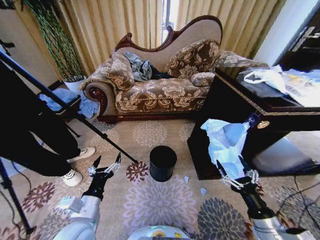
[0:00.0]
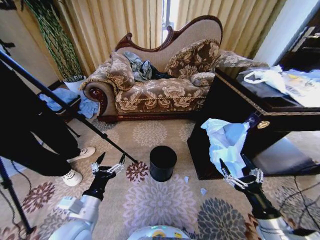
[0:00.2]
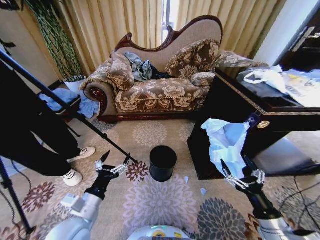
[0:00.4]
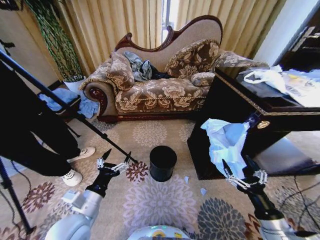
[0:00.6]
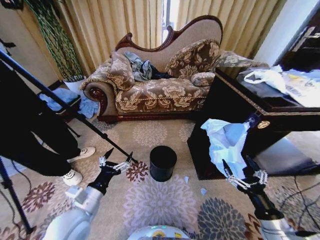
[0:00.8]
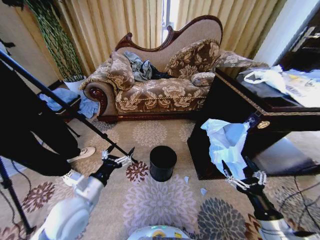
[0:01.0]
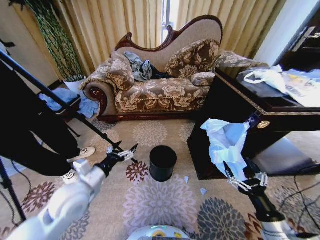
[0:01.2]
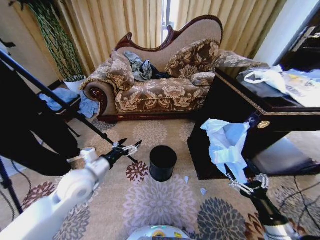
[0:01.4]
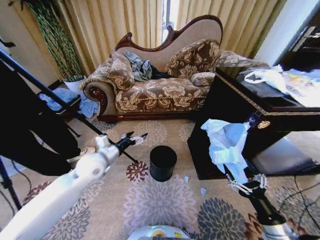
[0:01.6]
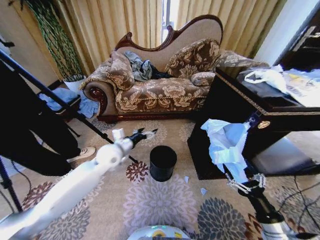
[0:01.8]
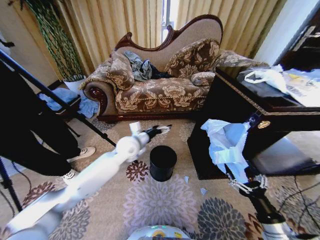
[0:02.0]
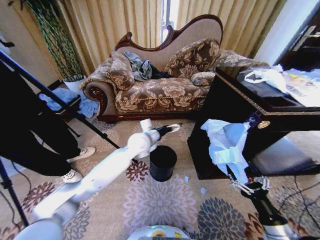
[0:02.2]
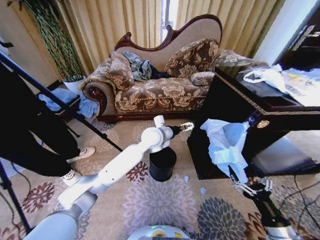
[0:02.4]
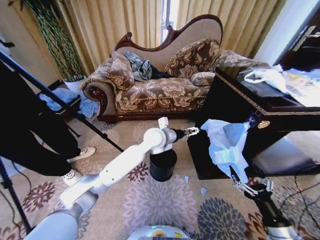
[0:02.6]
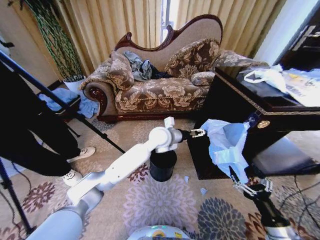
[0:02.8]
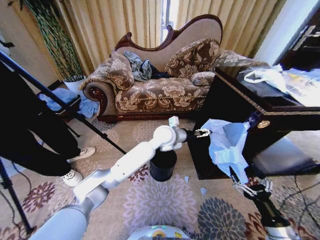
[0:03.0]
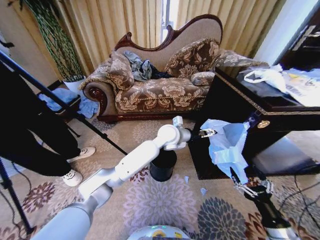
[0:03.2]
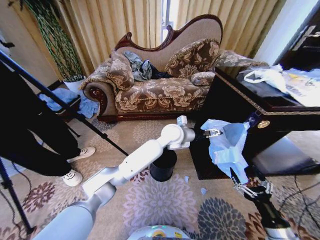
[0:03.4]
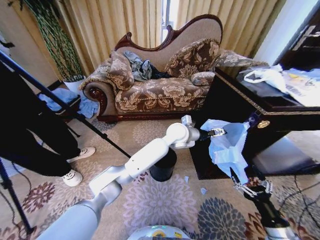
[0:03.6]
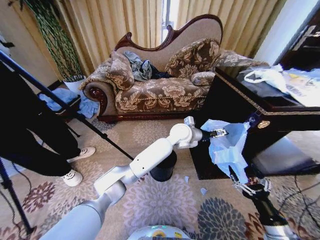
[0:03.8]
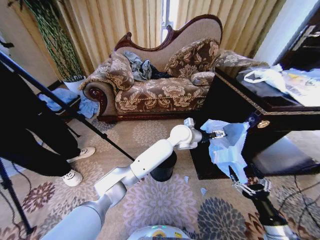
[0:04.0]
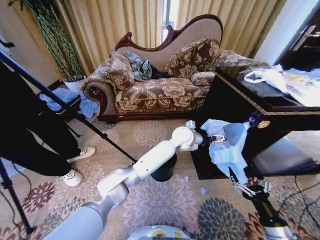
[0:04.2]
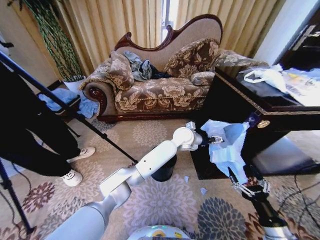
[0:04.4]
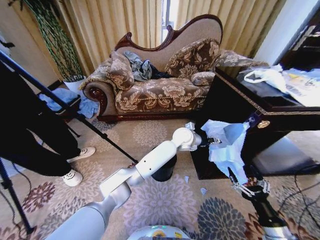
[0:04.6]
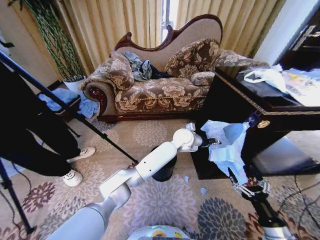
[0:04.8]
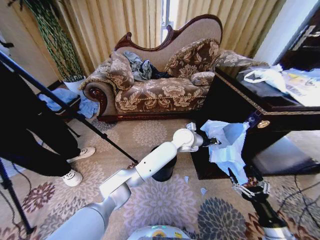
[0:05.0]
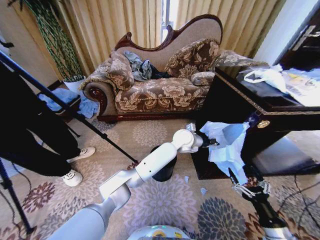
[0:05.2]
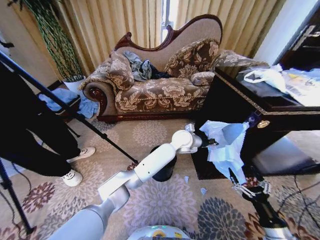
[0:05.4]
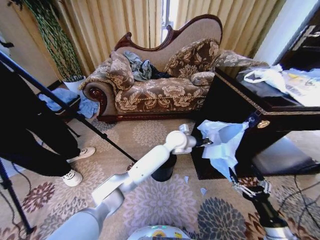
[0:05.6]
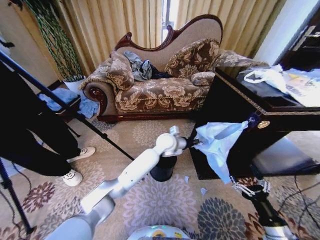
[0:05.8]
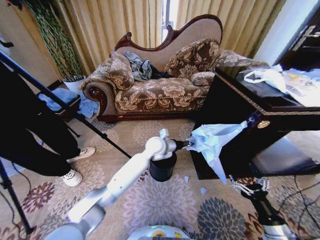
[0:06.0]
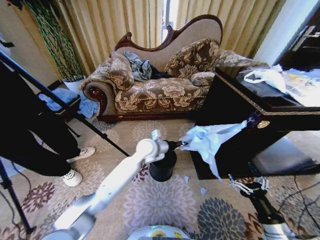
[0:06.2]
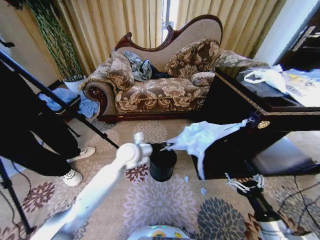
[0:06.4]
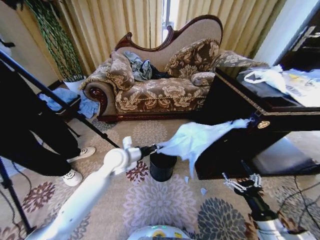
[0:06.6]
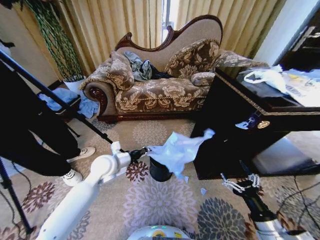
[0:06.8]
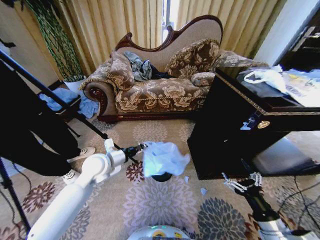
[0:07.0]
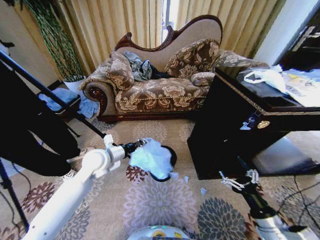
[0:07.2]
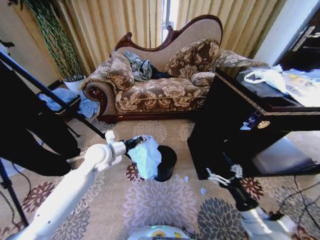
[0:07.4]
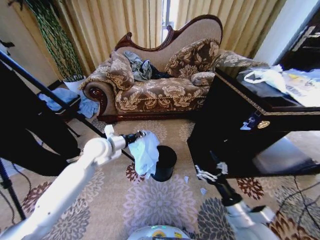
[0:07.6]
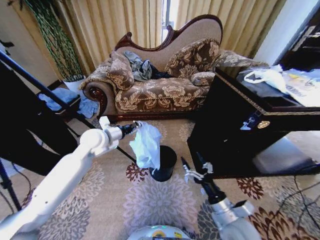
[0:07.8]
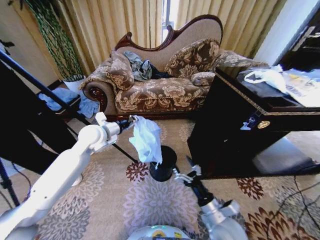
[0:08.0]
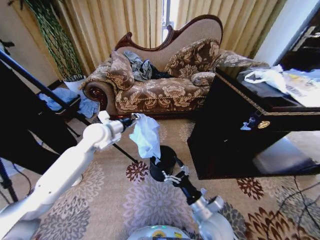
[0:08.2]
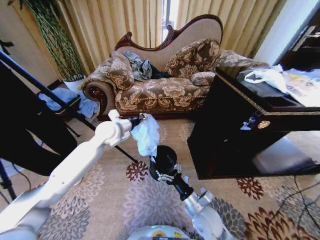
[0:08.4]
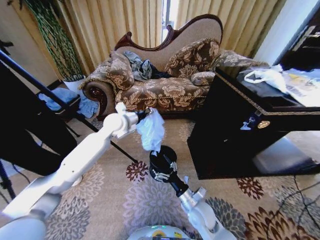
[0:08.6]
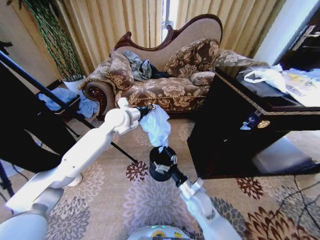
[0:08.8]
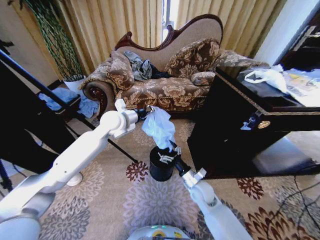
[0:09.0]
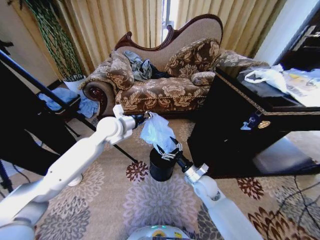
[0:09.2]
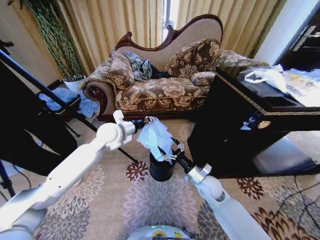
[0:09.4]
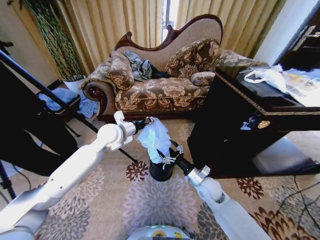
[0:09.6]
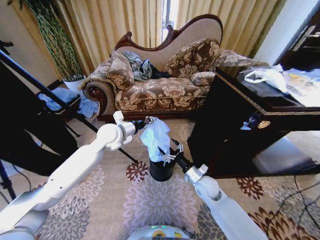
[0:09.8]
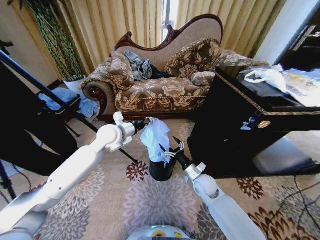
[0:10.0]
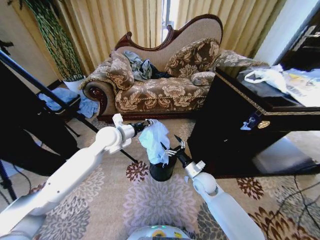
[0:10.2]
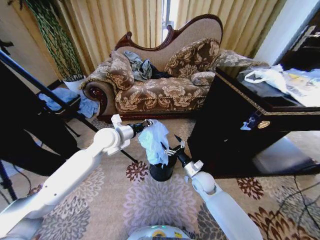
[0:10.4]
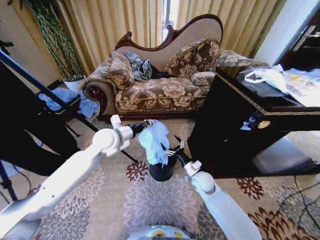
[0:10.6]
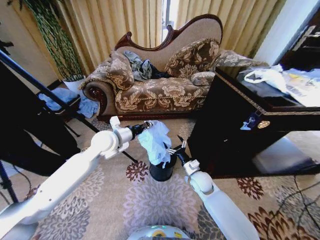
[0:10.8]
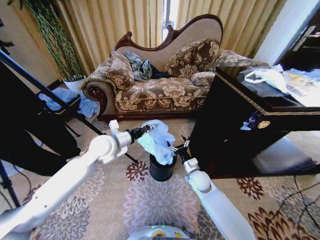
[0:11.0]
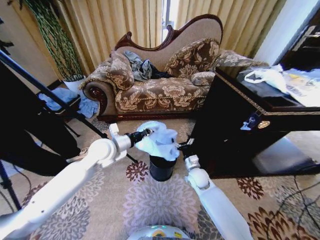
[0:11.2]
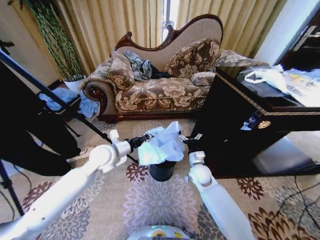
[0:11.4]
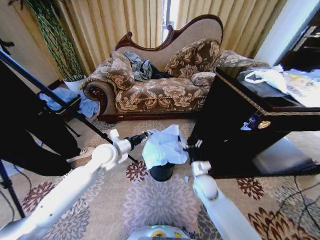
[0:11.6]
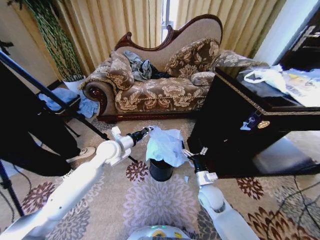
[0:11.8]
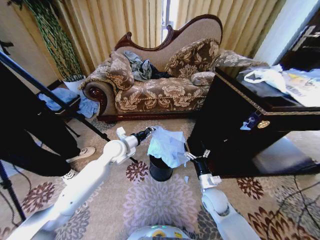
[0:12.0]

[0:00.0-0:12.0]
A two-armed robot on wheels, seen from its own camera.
Task of the whole recording: Place a garbage bag over the trash bin.
0:01.6 to 0:03.0: The left gripper heads to the right and forward, covering approximately 30 cm.
0:03.0 to 0:04.4: The left gripper goes about 10 cm to the right.
0:04.4 to 0:06.0: The left gripper is displaced to the left by about 15 cm, and closes.
0:06.0 to 0:07.6: The right gripper moves to the left and forward, approximately 10 cm; the left gripper moves to the left, approximately 20 cm.
0:07.6 to 0:09.0: The left gripper heads upward, forward and to the right, covering roughly 10 cm. The right gripper moves forward, to the left and downward, roughly 20 cm.
0:09.0 to 0:10.4: The left gripper changes place by about 5 cm.
0:10.4 to 0:12.0: The left gripper goes approximately 5 cm downward. The right gripper shifts about 5 cm backward.

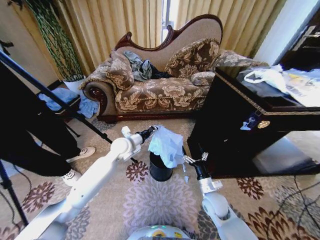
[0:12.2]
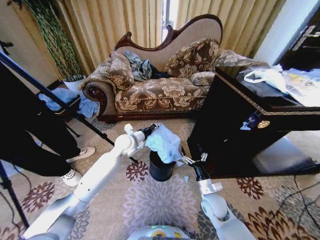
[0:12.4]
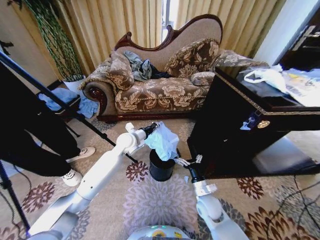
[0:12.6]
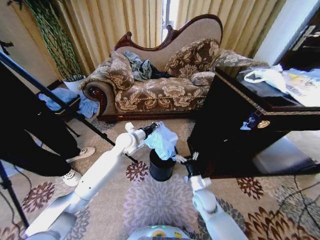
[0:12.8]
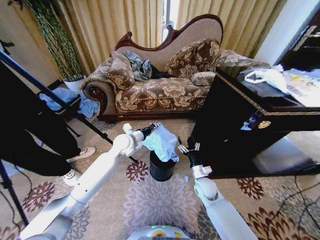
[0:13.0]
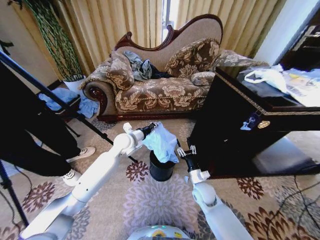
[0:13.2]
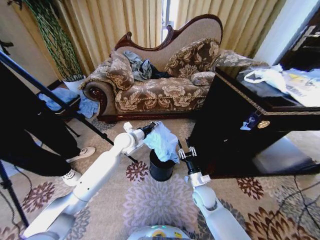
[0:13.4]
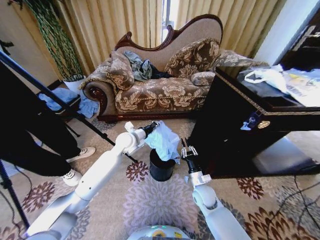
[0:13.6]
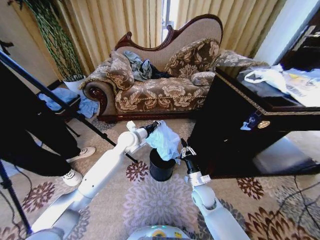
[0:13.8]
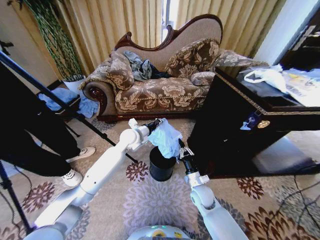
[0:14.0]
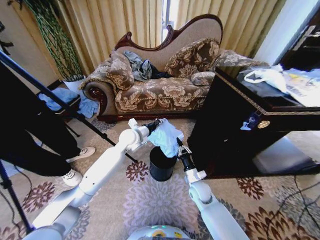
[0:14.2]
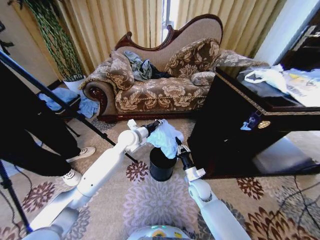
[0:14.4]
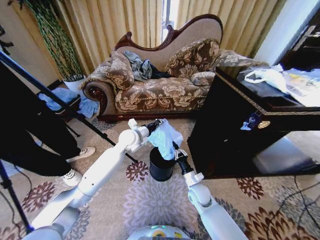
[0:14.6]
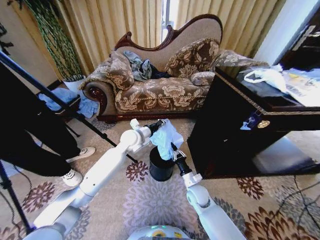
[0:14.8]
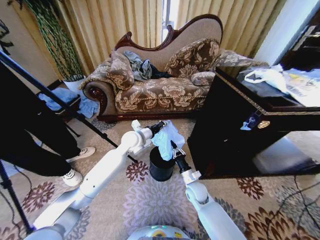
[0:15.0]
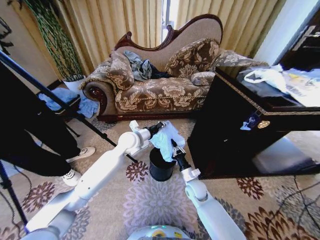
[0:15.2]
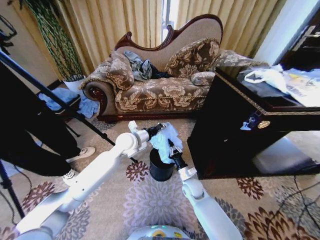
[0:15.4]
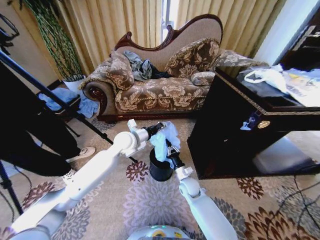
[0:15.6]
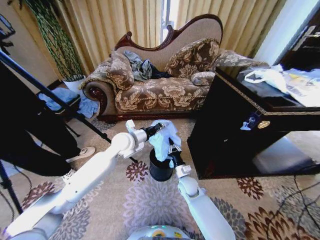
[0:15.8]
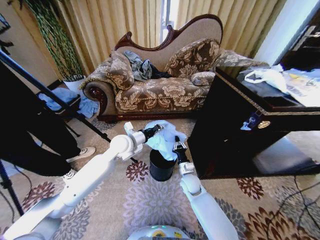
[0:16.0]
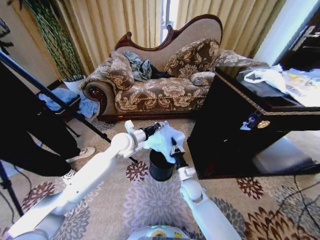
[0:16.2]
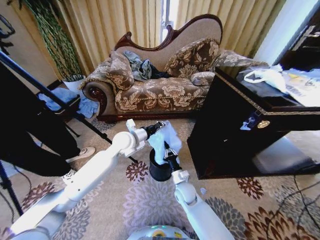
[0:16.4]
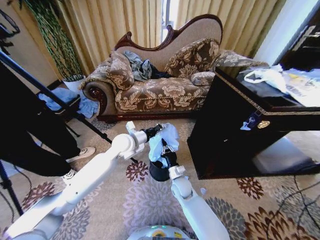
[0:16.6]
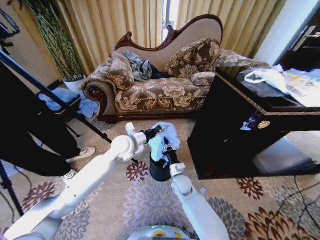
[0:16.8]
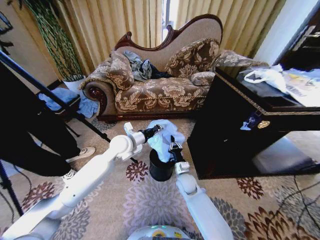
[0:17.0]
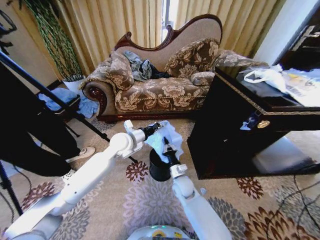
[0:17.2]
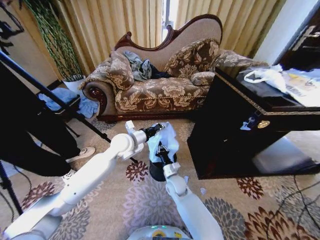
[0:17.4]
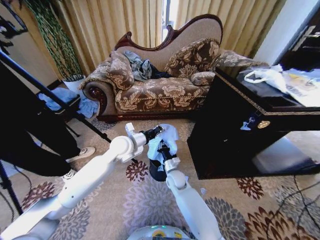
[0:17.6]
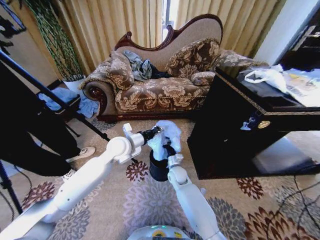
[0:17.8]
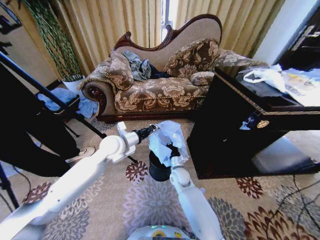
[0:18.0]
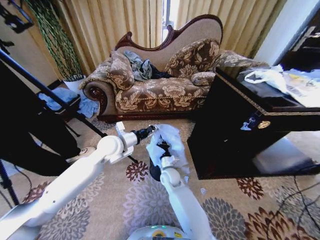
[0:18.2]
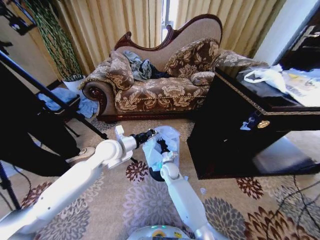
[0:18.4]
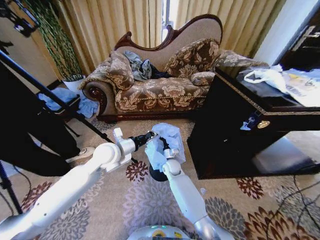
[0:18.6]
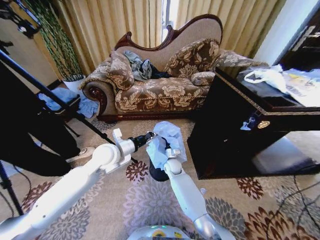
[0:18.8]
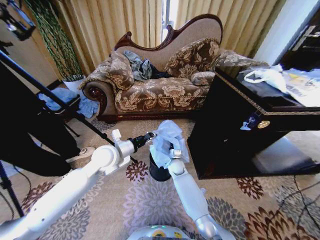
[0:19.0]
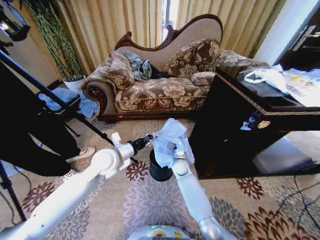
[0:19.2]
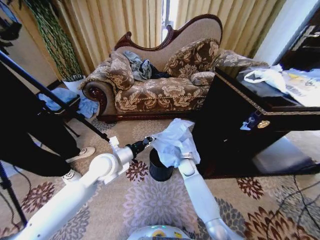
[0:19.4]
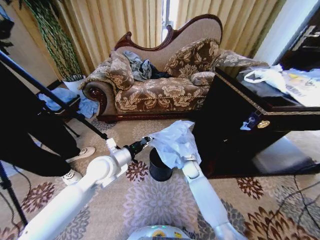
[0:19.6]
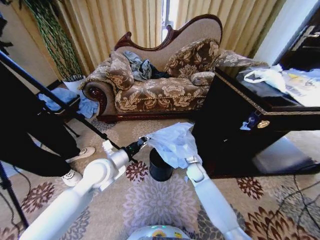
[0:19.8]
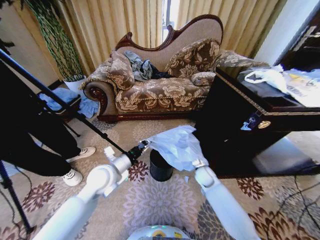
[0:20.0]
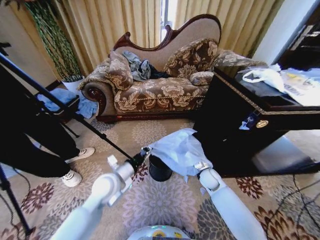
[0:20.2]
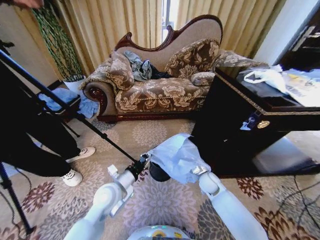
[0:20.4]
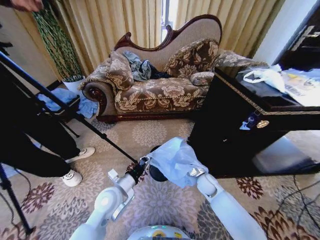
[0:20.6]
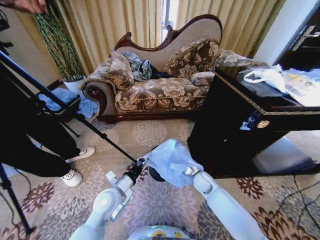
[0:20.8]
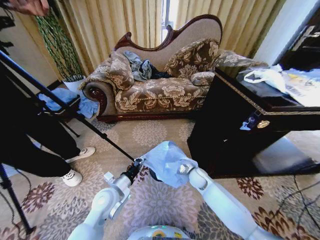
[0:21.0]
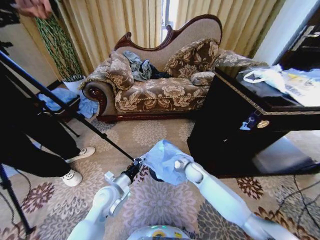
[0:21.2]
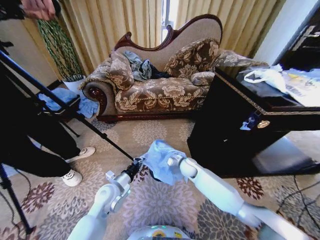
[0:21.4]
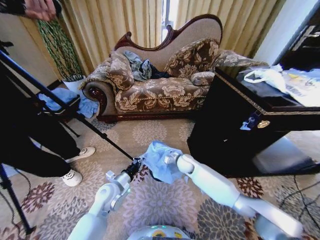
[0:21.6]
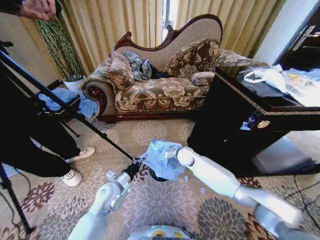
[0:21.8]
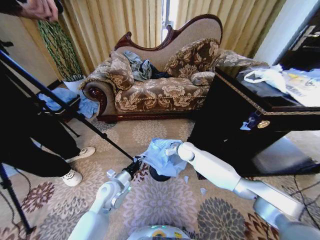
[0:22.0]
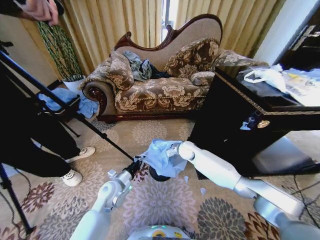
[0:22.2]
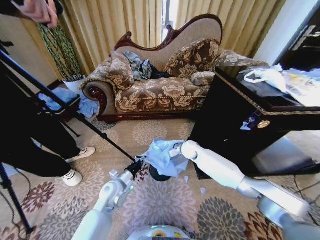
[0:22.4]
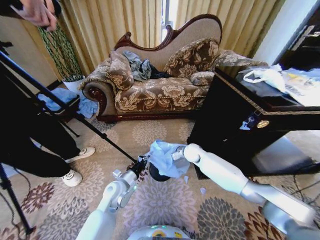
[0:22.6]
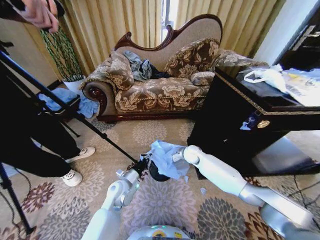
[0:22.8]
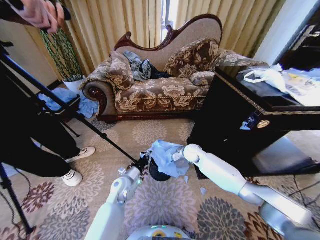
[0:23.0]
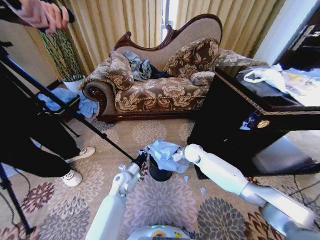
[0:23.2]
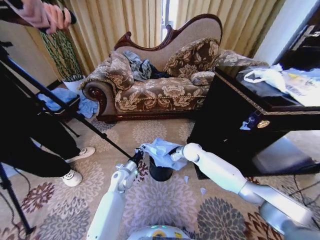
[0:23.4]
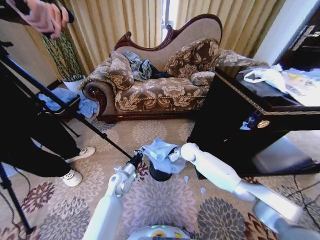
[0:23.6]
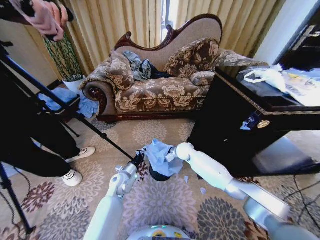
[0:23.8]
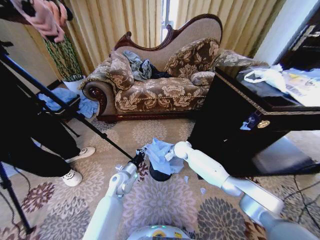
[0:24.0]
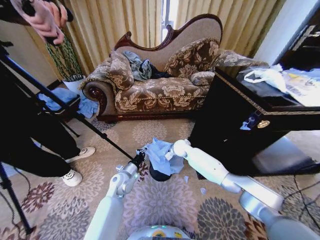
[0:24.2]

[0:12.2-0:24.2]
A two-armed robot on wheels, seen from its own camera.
Task of the whole recording: Place a garbage bag over the trash bin.
0:12.2 to 0:13.8: The right gripper moves roughly 5 cm, and closes up.
0:13.8 to 0:15.2: The grippers move only a little.
0:15.2 to 0:16.6: The right gripper travels to the left by some 5 cm.
0:16.6 to 0:18.2: The left gripper ends up some 5 cm from where it was, while the right gripper moves to the left, approximately 5 cm.
0:18.2 to 0:19.8: The right gripper travels to the right by approximately 15 cm, while the left gripper moves backward, approximately 10 cm.
0:19.8 to 0:21.2: The right gripper moves some 5 cm to the right and comes back, while the left gripper travels downward by roughly 10 cm.
0:21.2 to 0:22.6: The right gripper moves forward and upward, roughly 10 cm.
0:22.6 to 0:24.2: The right gripper moves to the left, about 5 cm; the left gripper heads forward, covering some 5 cm.
